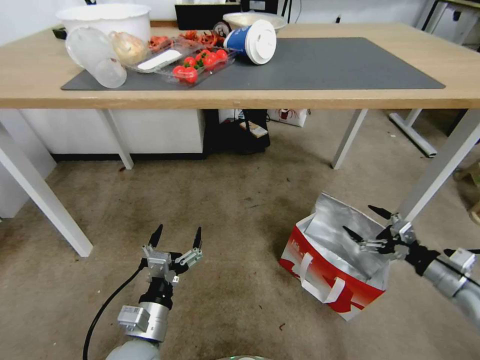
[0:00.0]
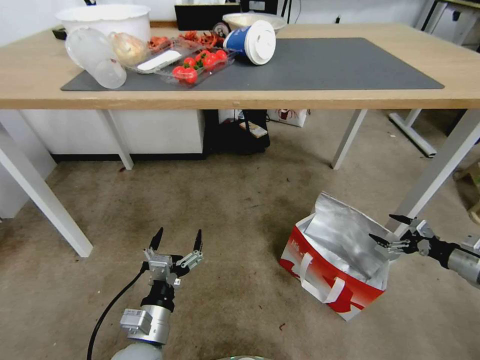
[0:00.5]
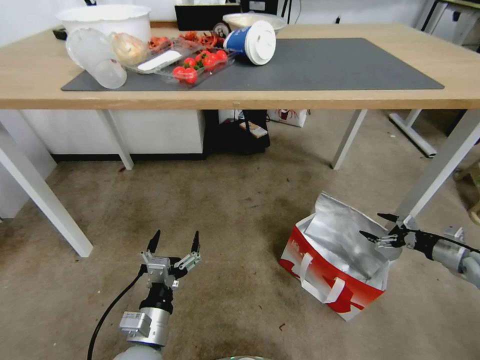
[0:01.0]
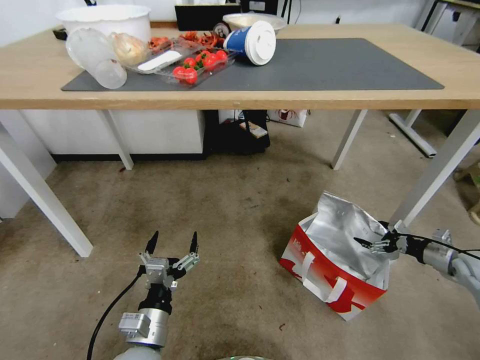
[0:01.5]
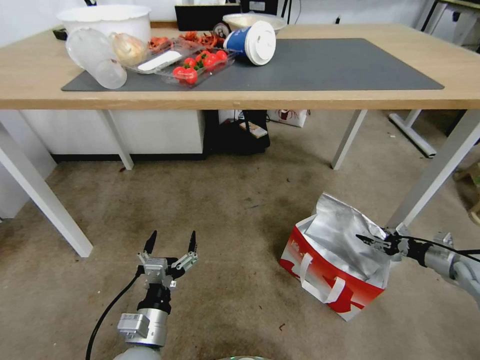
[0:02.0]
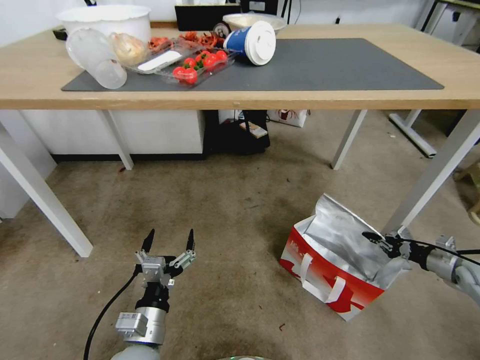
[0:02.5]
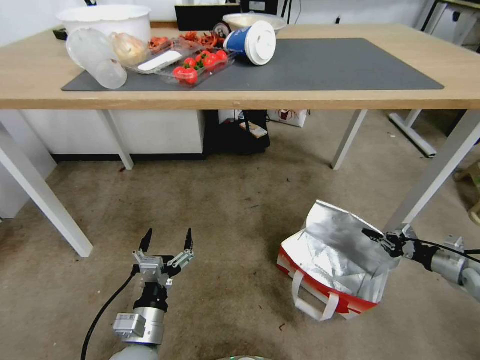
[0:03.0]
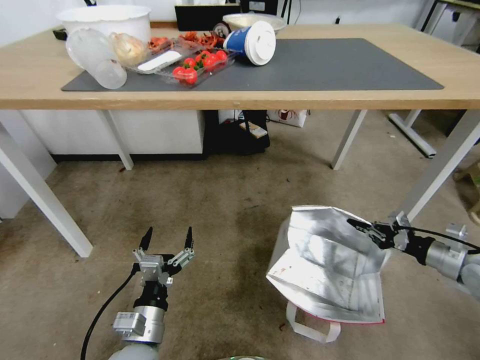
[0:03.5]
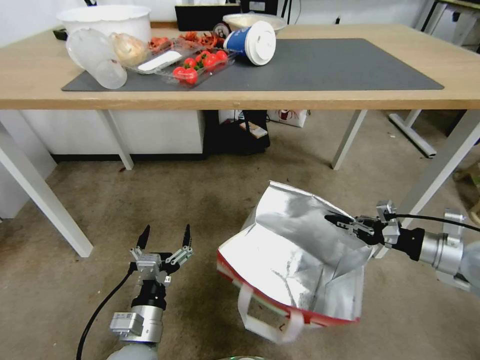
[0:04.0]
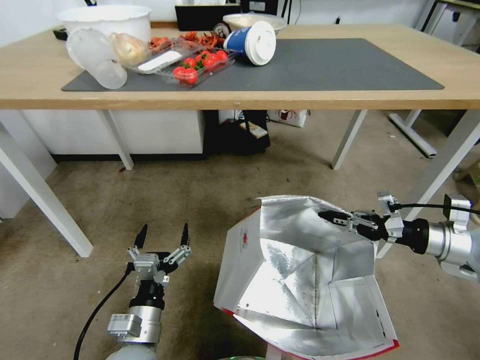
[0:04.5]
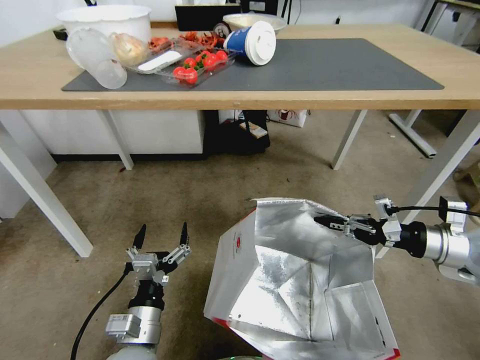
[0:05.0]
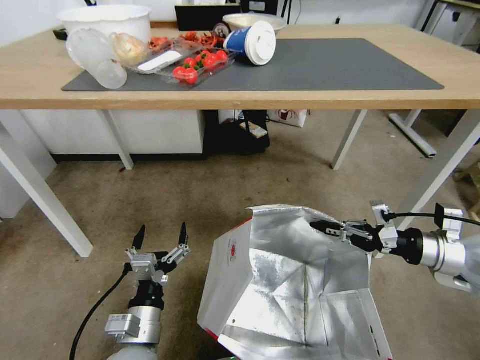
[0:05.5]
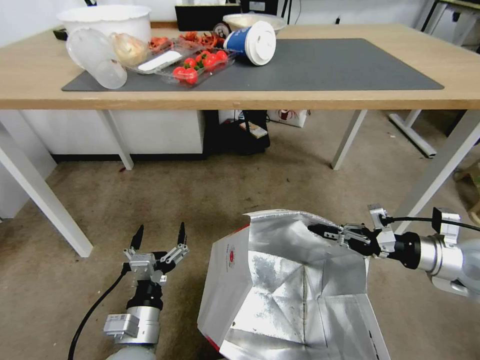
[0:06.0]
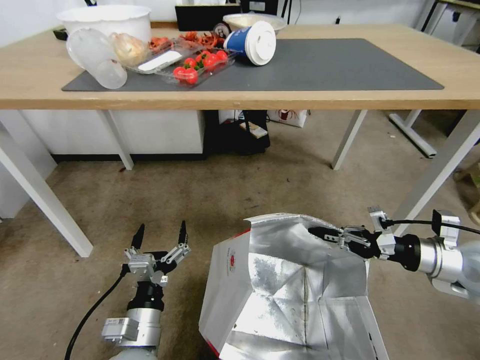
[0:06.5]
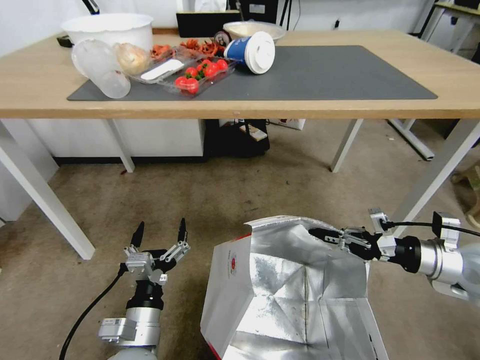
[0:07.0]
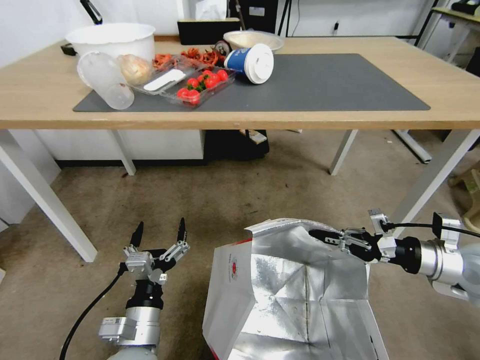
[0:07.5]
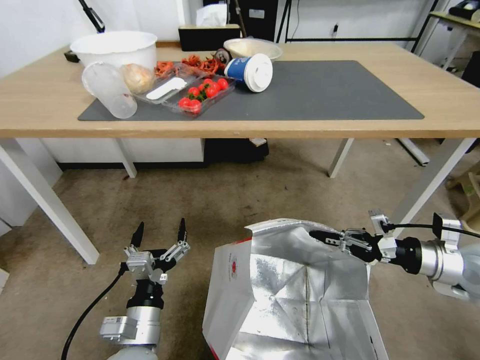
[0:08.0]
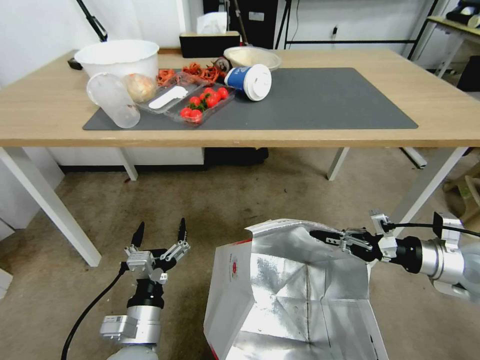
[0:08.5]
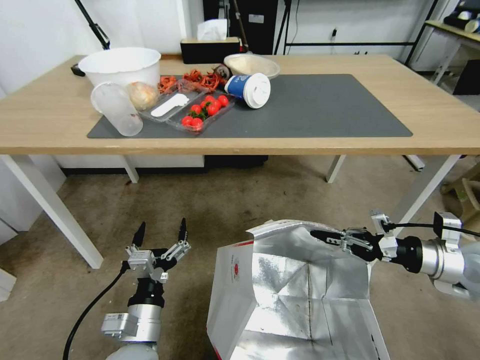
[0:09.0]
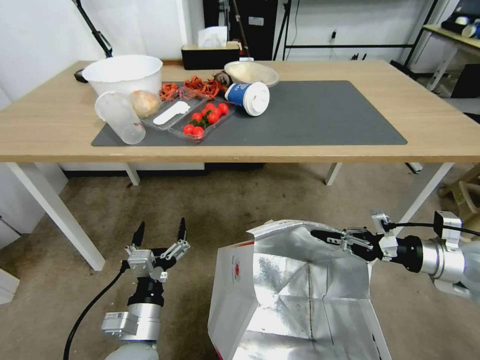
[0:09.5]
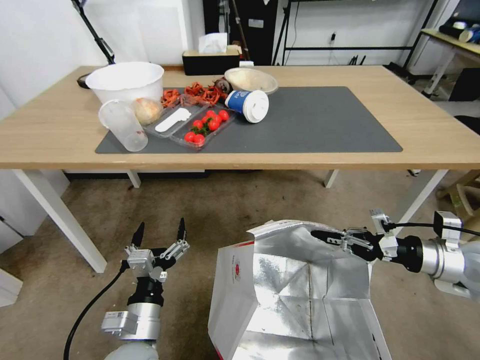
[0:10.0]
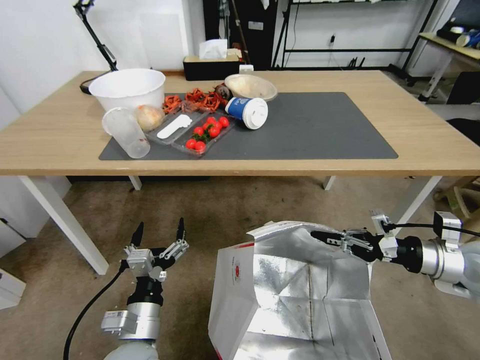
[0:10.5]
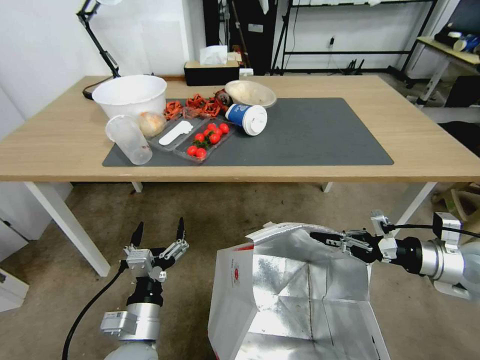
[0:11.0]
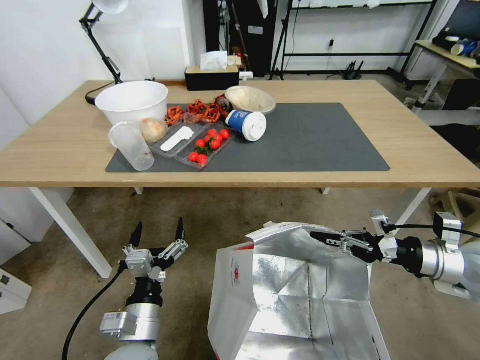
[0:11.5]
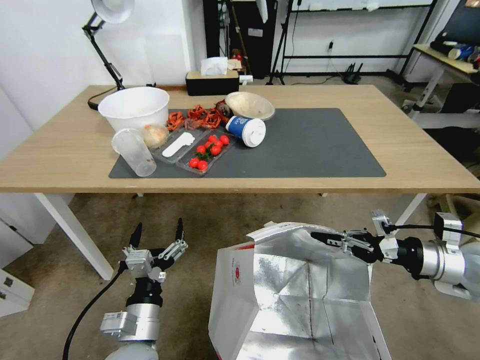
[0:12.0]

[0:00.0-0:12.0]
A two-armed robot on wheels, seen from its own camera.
Task of the whole recording: Pick up the food delivery bag from the floor and place it on the table.
0:00.0 to 0:02.0: The right gripper heads to the right, forward and downward, covering approximately 15 cm, and closes.
0:02.0 to 0:04.0: The right gripper is displaced upward and to the left by roughly 20 cm, and closes its fingers.
0:04.0 to 0:06.0: There are only small adjustments of the grippers.

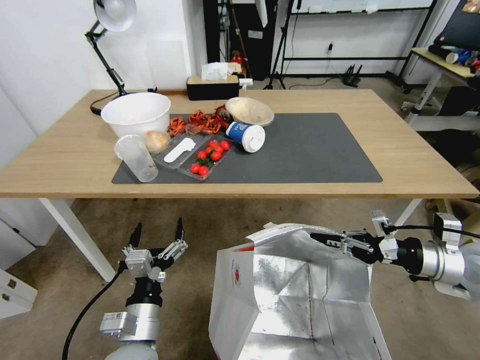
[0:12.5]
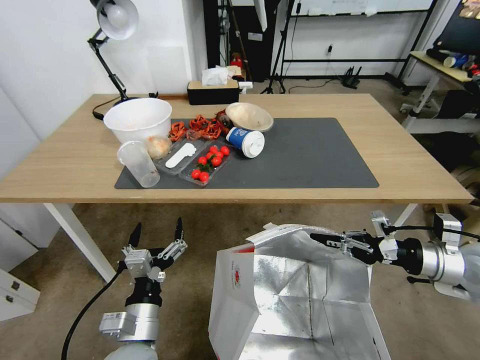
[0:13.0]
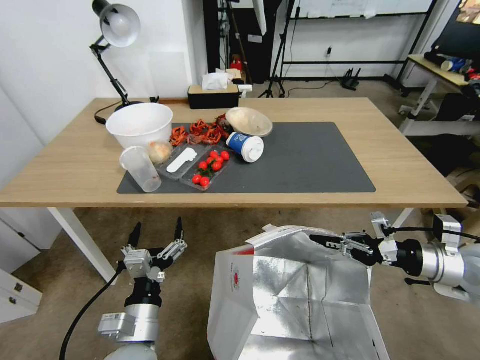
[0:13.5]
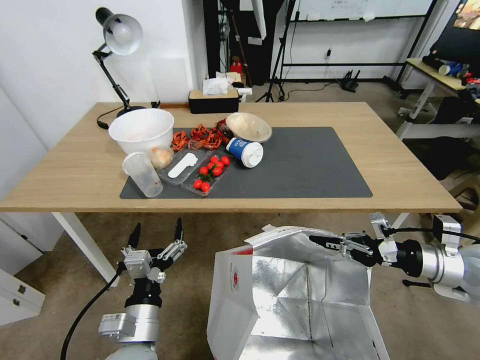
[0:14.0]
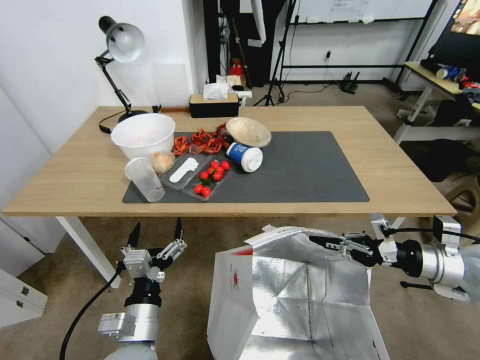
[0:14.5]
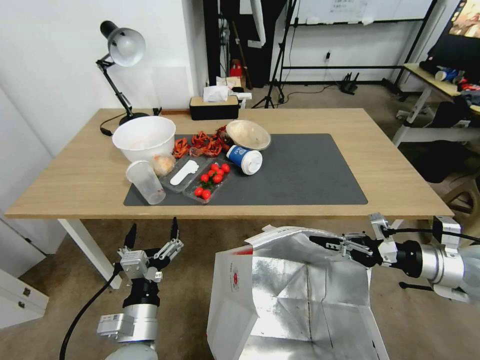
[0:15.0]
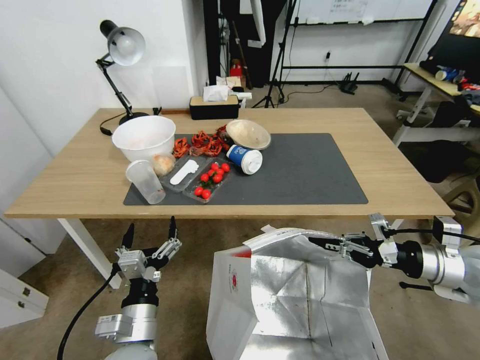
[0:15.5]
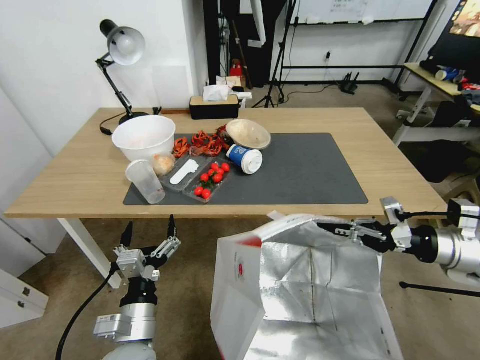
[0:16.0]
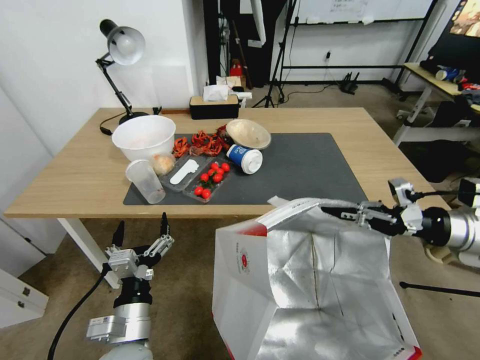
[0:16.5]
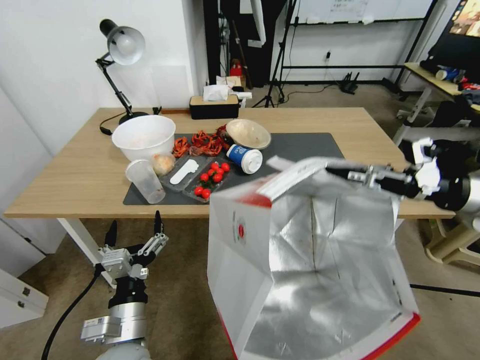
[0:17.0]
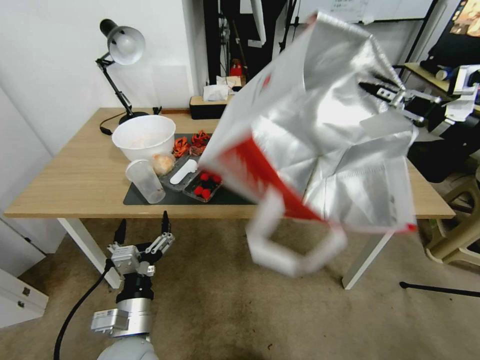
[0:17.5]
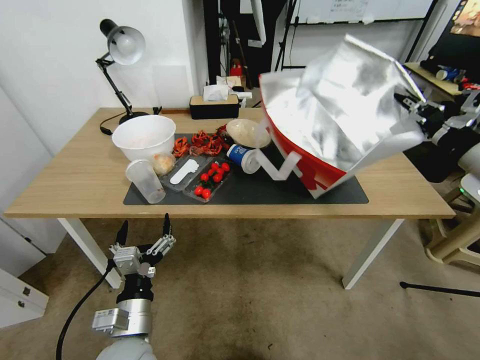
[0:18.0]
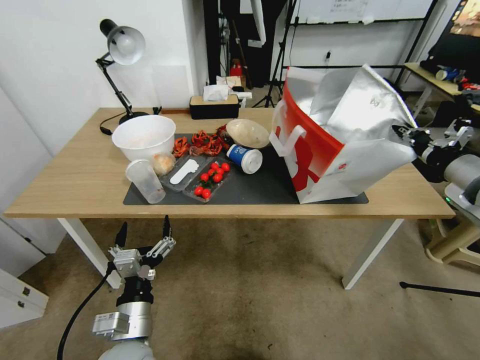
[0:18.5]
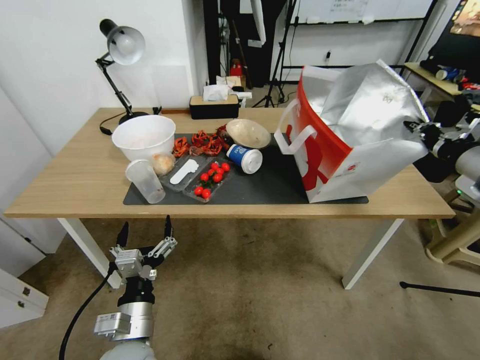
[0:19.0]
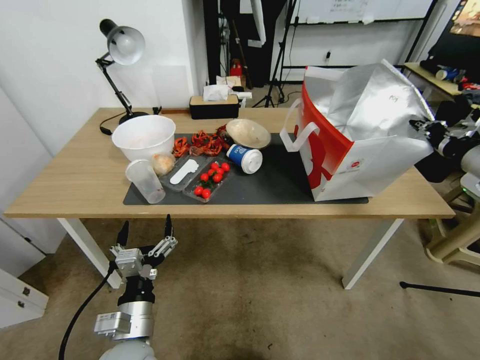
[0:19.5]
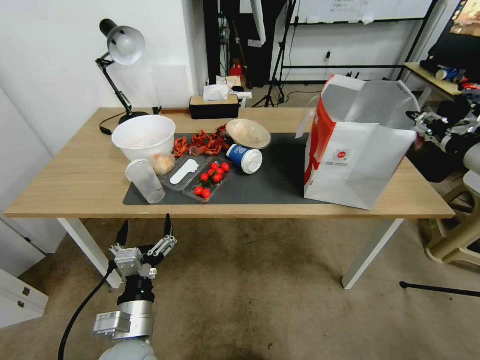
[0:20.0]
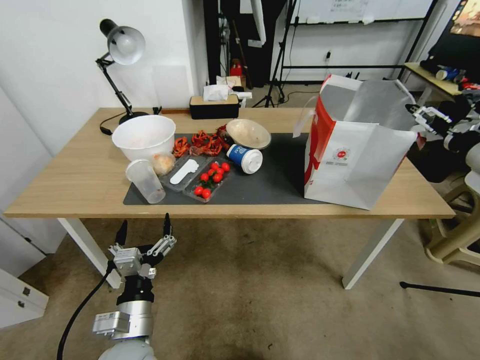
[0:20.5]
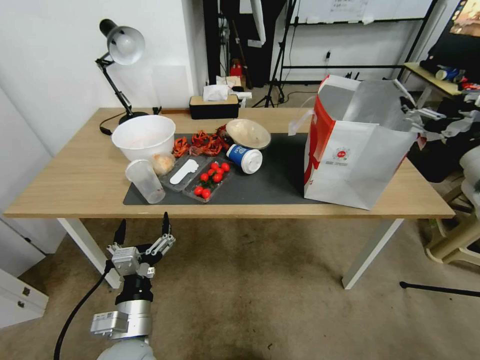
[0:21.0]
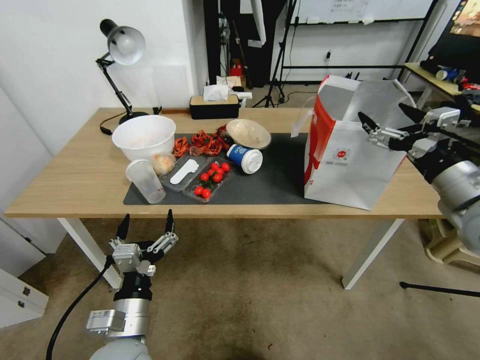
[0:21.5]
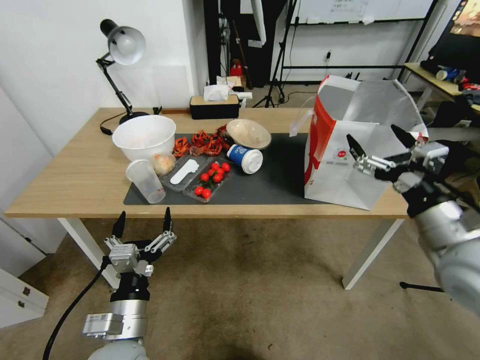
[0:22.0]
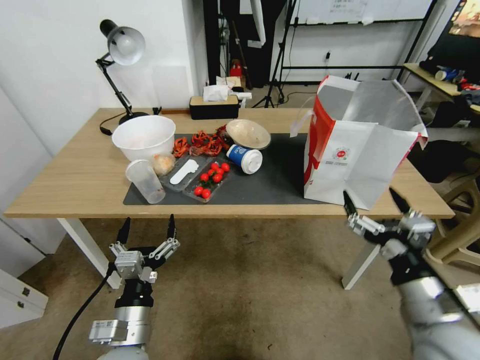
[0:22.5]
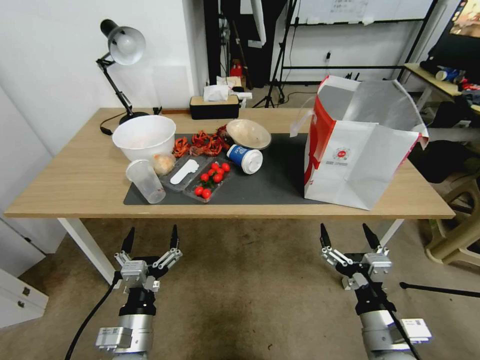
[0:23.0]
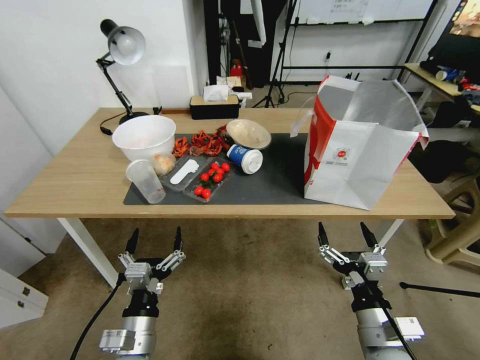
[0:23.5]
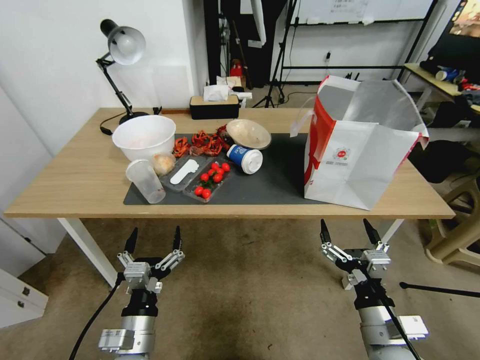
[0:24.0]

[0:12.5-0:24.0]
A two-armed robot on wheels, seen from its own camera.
Task of the whole recording: Pick up the food delivery bag from the floor and place it on the table.
0:14.5 to 0:16.5: The right gripper goes approximately 10 cm upward.
0:18.5 to 0:20.0: The right gripper opens its fingers.
0:20.0 to 0:22.0: The right gripper travels to the left, backward and downward by approximately 15 cm, and opens up.
0:22.0 to 0:24.0: The right gripper shifts approximately 20 cm downward, backward and to the left.

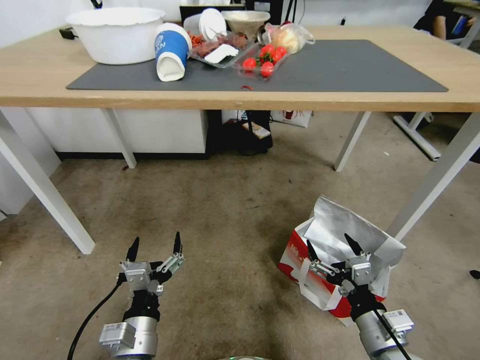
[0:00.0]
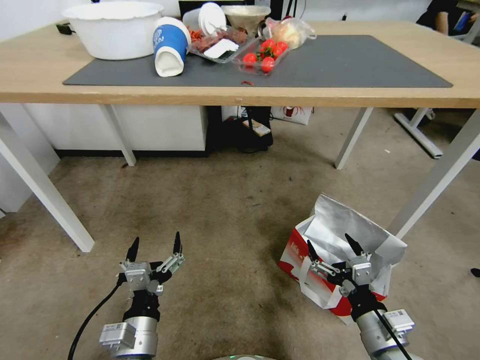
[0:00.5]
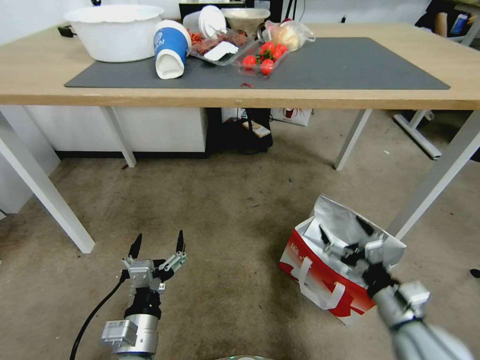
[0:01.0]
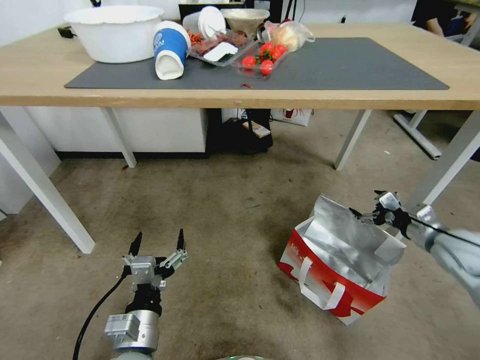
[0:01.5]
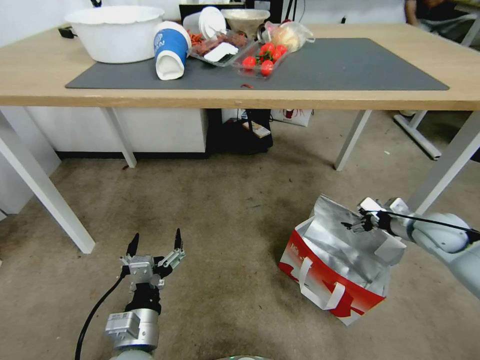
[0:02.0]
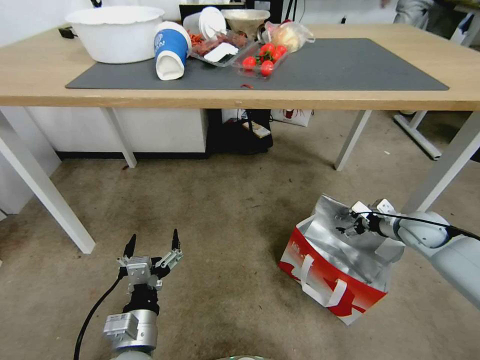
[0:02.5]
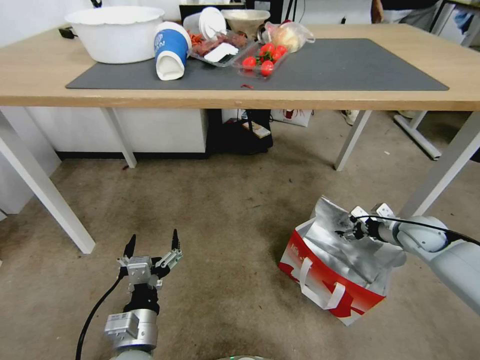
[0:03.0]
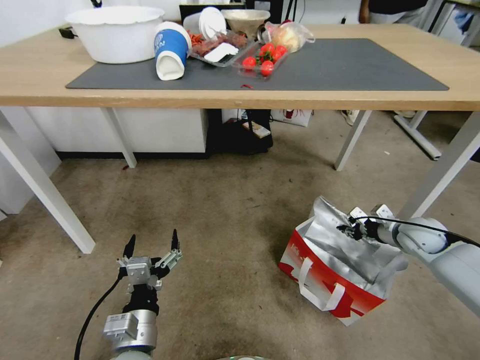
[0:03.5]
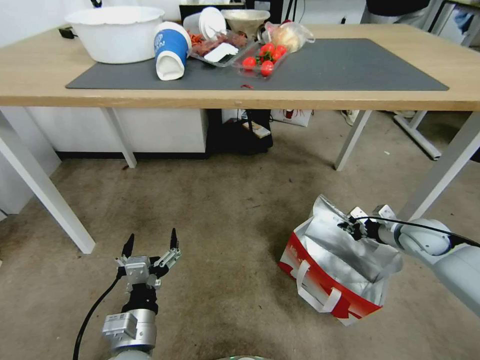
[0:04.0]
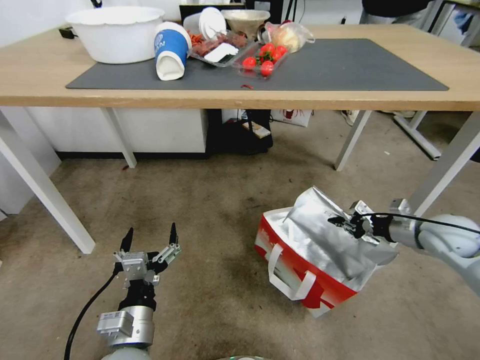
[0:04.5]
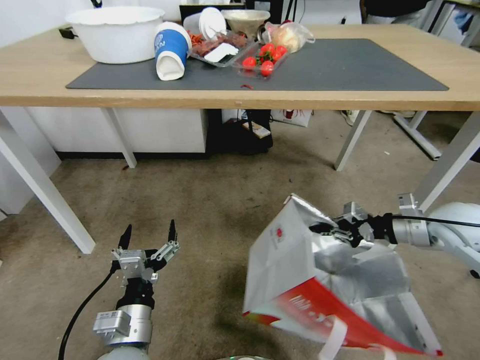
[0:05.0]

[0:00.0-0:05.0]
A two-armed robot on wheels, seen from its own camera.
Task of the whole recording: Pick up the food delivery bag from the floor and place it on the table.
0:00.0 to 0:02.5: The right gripper is displaced forward and to the right by some 35 cm.
0:02.5 to 0:05.0: The right gripper travels upward and backward by approximately 15 cm, and closes.
